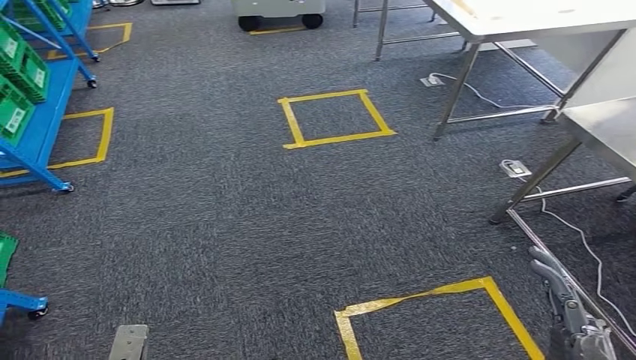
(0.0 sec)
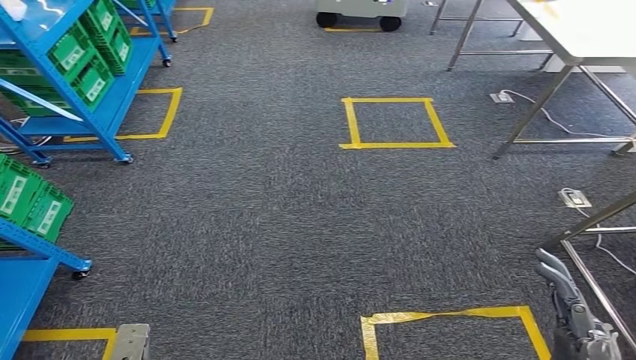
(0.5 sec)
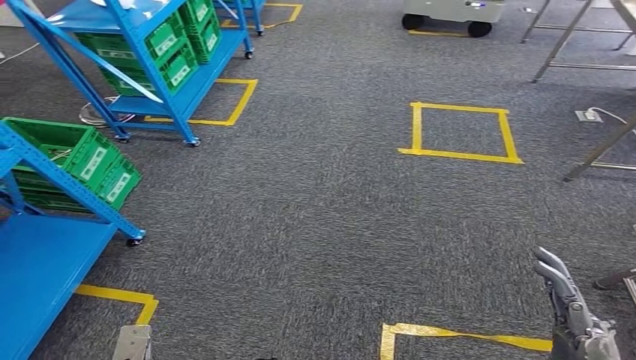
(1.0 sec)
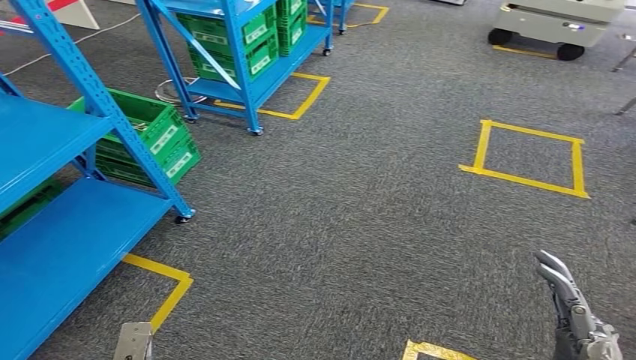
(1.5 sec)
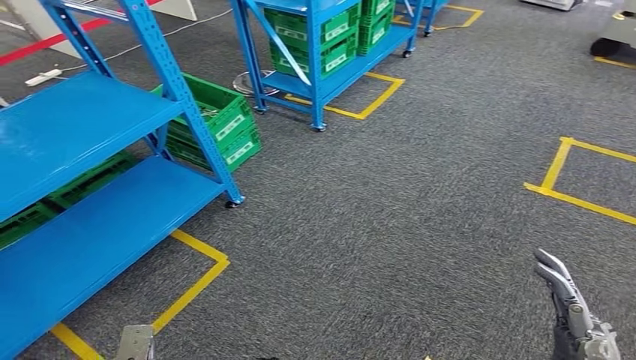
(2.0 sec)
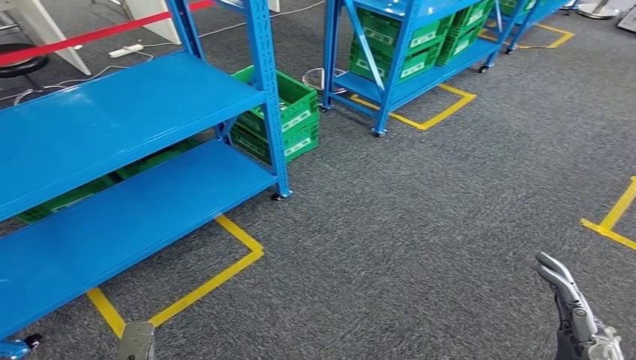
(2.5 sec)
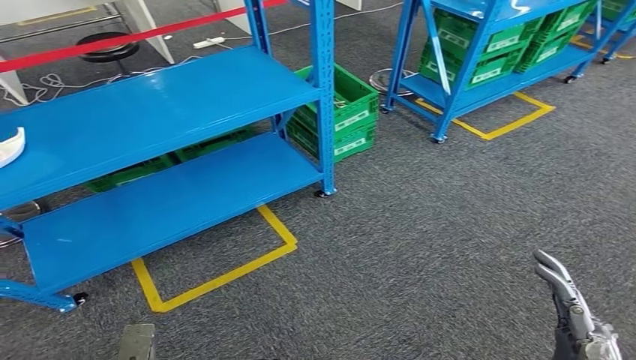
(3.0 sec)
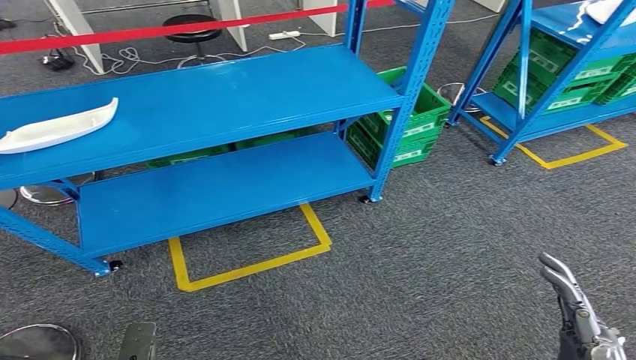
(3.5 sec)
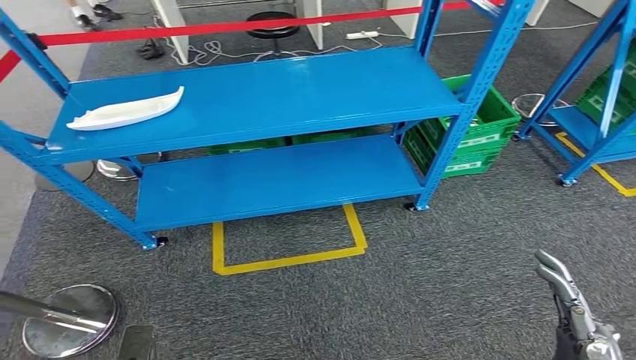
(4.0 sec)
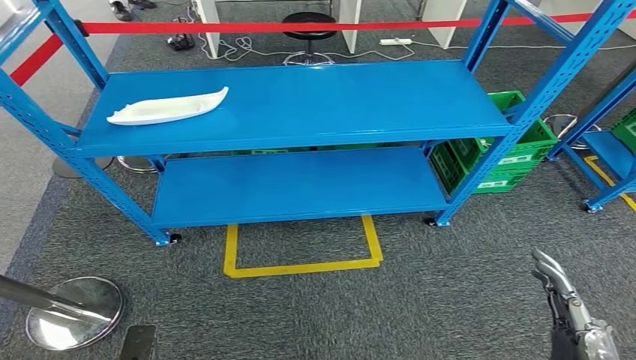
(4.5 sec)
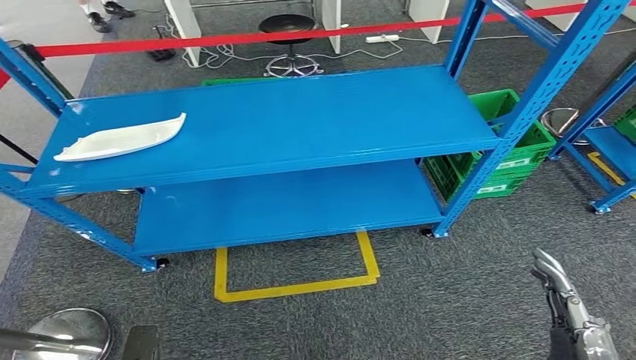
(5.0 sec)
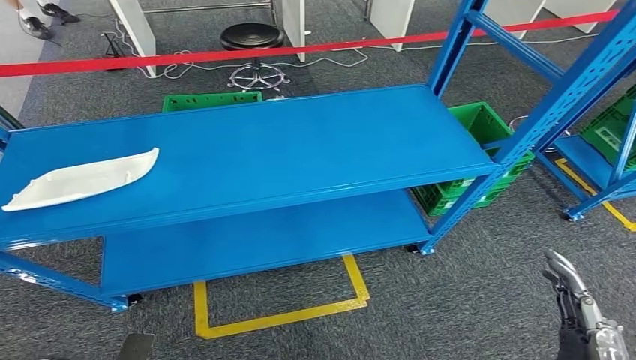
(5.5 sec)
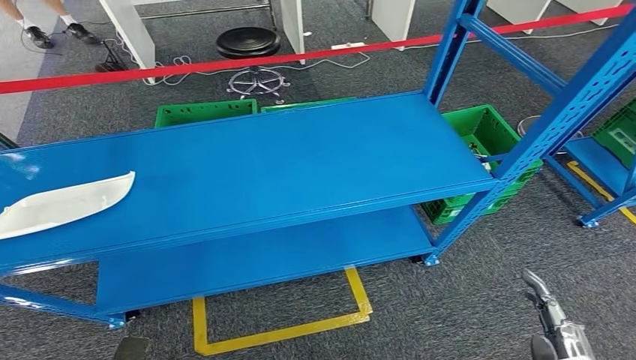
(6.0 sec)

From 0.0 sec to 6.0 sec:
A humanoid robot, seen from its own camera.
Step, from 0.0 sec to 6.0 sec: Return to the initial position at the workbench.
